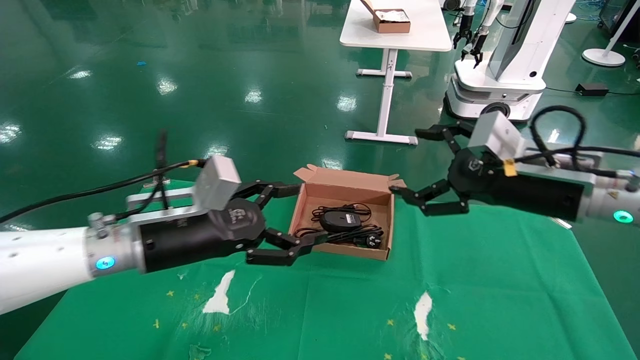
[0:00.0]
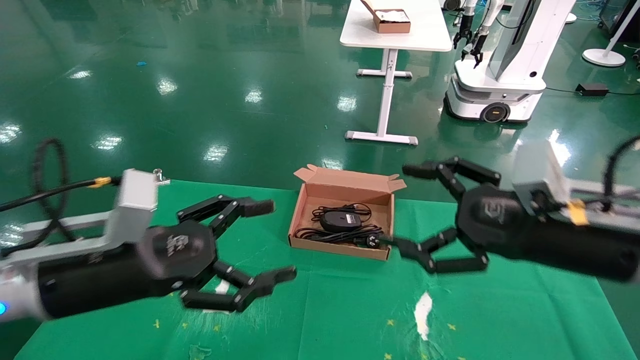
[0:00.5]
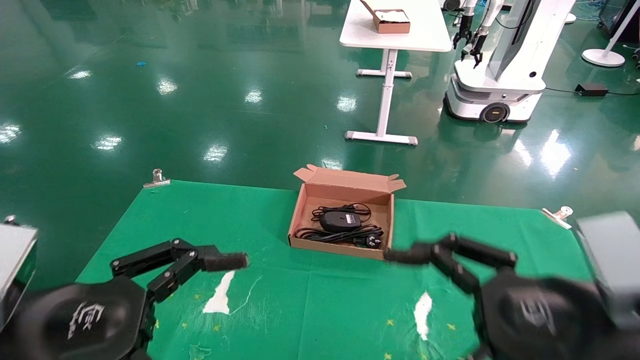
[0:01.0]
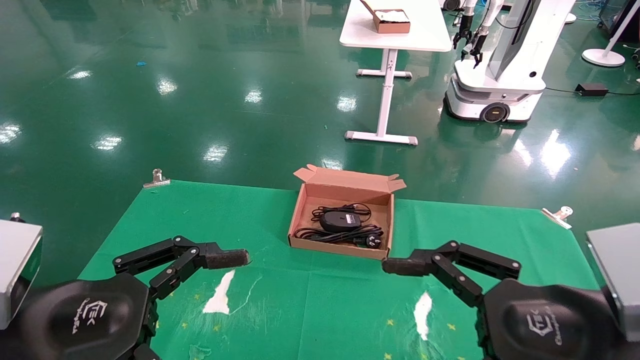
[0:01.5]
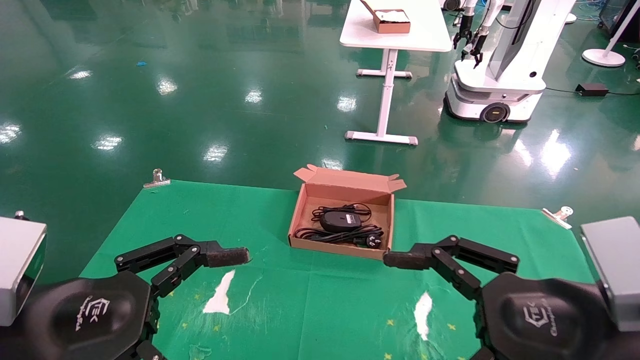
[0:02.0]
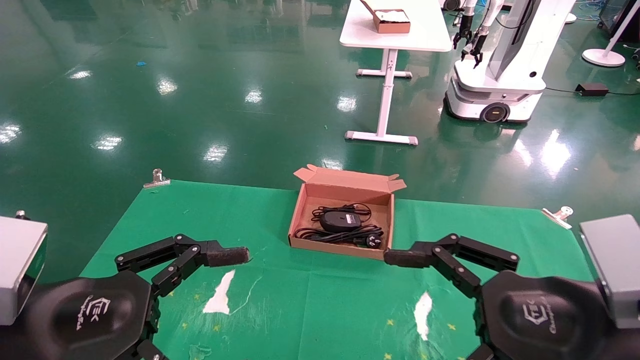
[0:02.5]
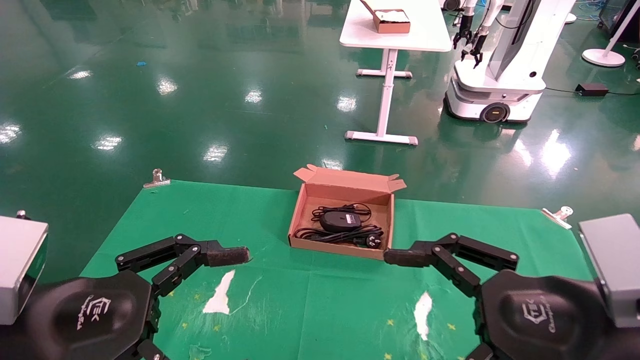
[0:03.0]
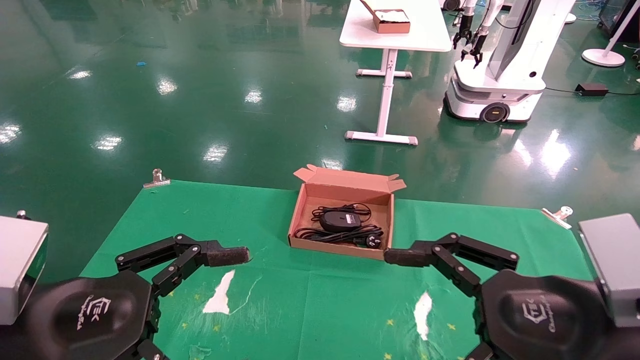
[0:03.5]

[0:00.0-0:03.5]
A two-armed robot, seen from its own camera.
0:00.0 to 0:02.0: The right gripper travels backward by about 15 cm, while the left gripper heads backward and to the left, covering approximately 15 cm.
0:02.0 to 0:03.5: Neither gripper changes place.
